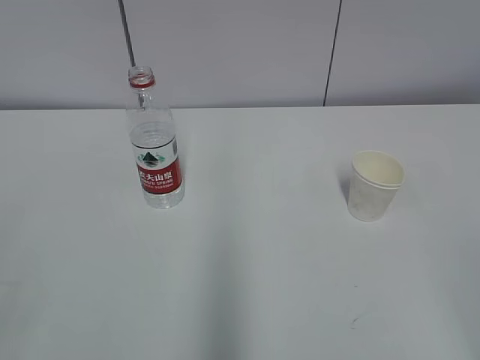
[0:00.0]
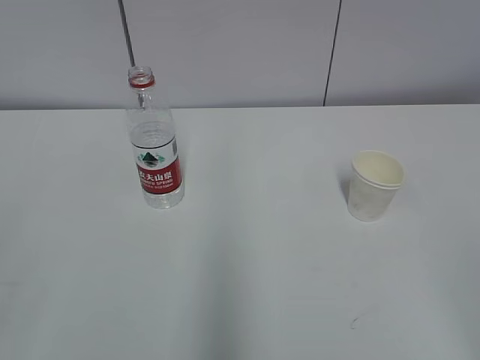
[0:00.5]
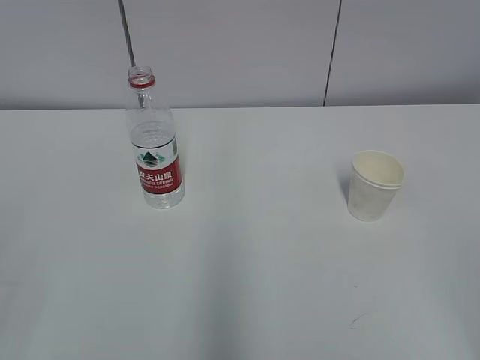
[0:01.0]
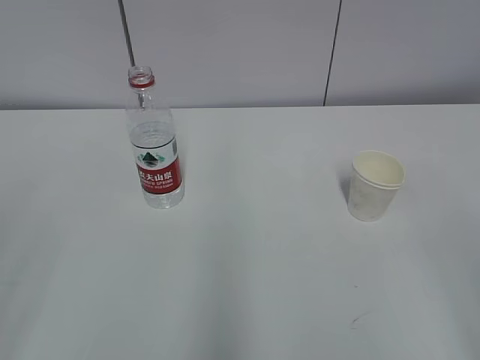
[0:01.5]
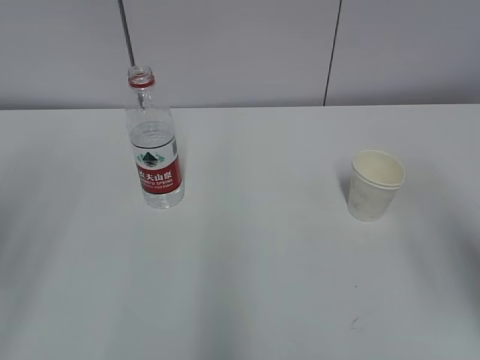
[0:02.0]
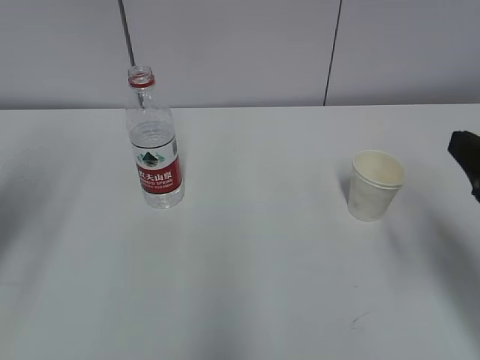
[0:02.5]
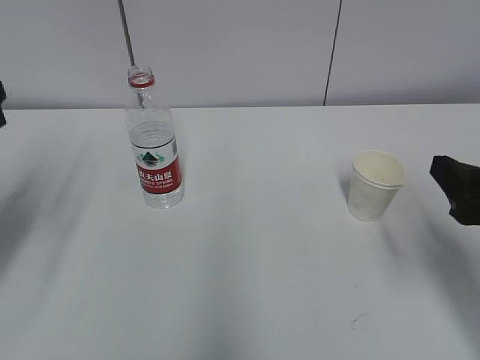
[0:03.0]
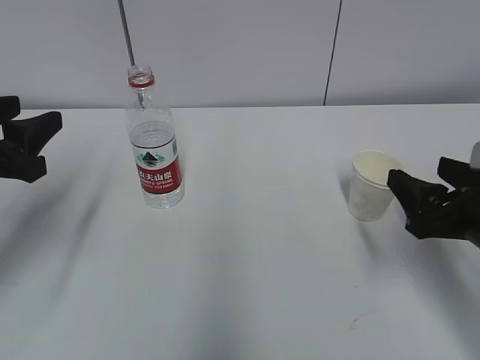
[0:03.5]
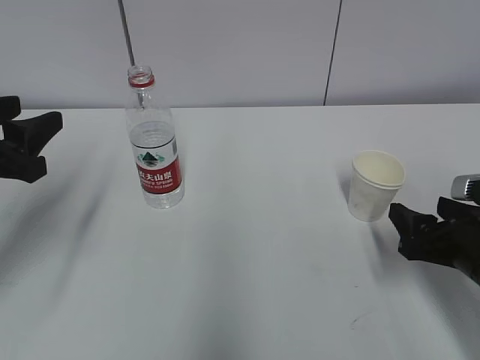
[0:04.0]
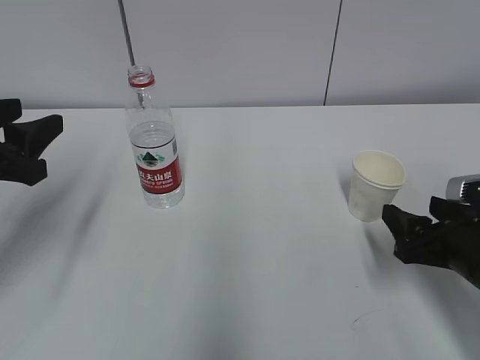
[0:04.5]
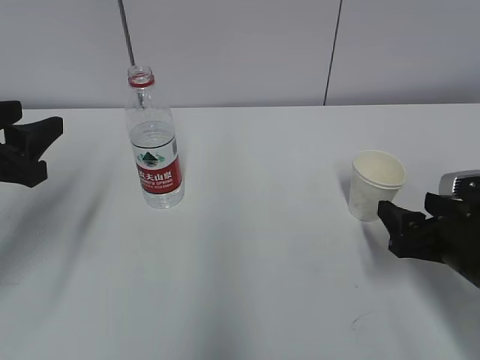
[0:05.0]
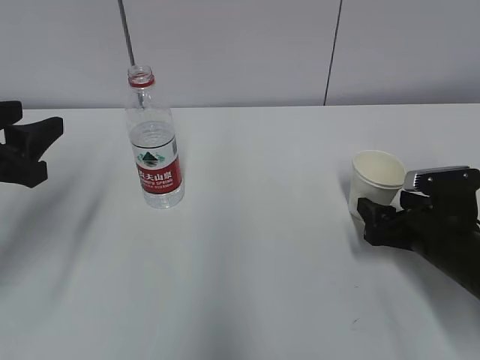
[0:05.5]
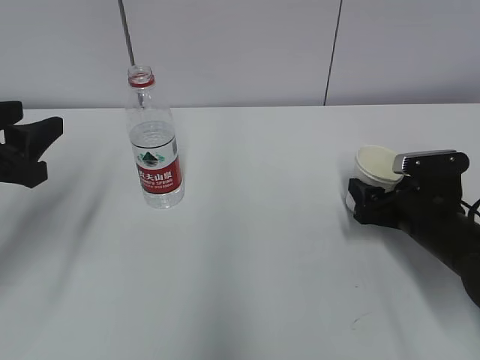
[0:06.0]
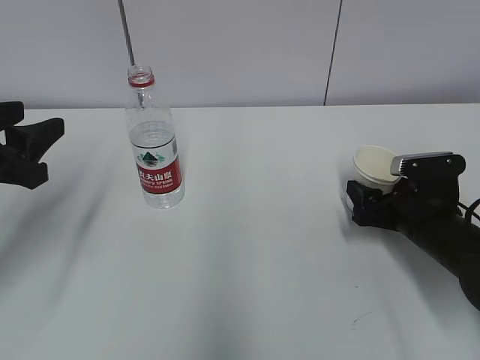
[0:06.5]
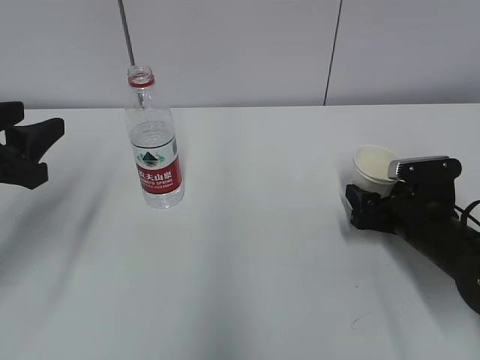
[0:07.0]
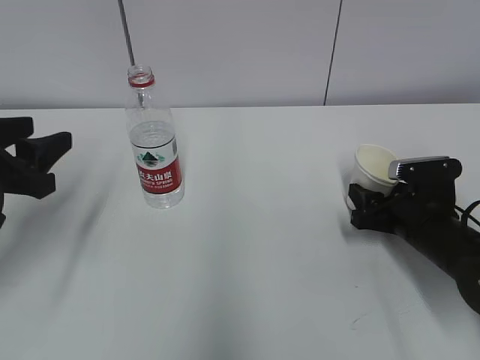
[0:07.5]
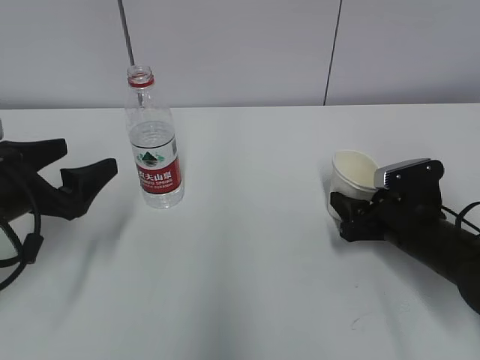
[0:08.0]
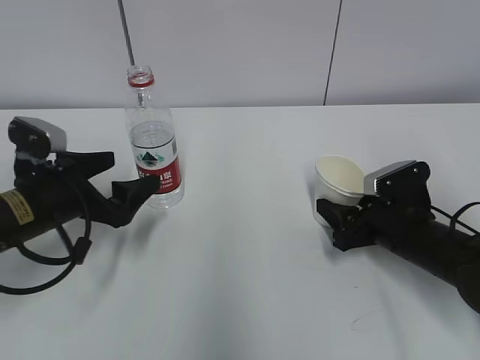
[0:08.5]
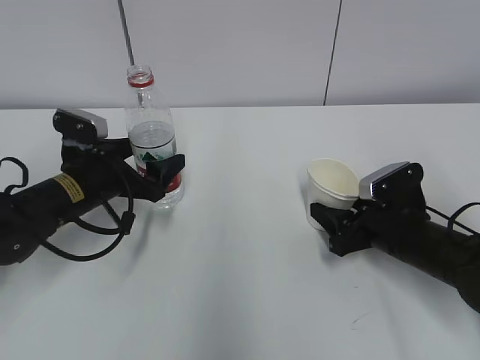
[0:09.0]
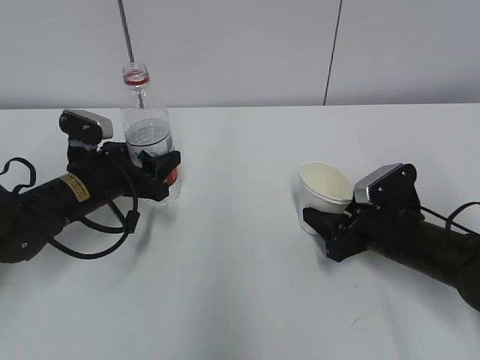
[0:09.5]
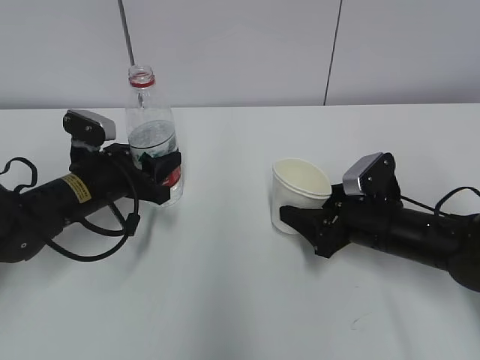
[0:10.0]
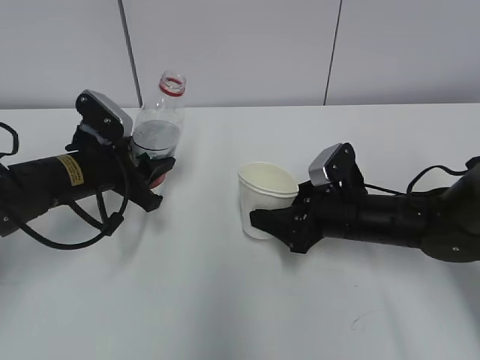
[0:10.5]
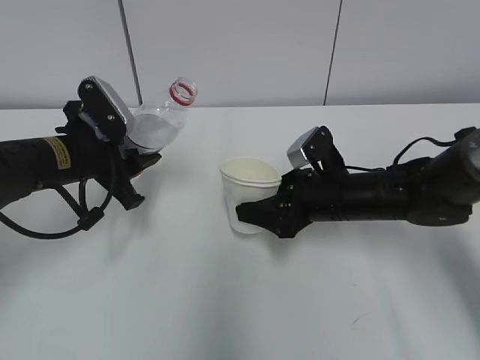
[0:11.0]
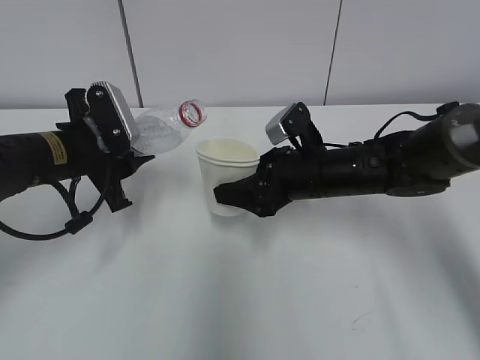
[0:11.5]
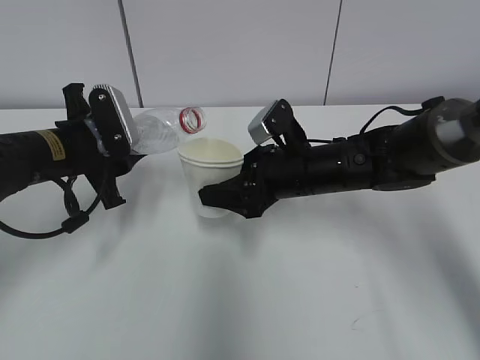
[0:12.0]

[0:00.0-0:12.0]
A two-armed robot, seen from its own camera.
Step, 0:00.0 to 0:07.5: Grab the paper cup with the right hand.
Step, 0:08.5 to 0:12.0: Lift the paper cup with the right hand.
0:02.0 to 0:04.0: The left gripper heads forward and downward, covering some 15 cm. The right gripper travels downward and forward by roughly 25 cm.
0:04.0 to 0:06.0: The right gripper travels forward by about 10 cm.
0:06.0 to 0:08.0: The right gripper closes. Meanwhile the left gripper moves downward, about 5 cm, and opens.
0:08.0 to 0:10.0: The left gripper travels forward, to the right and downward by approximately 15 cm, and closes up.
0:10.0 to 0:12.0: The left gripper heads upward, covering approximately 5 cm. The right gripper heads to the left and upward, covering approximately 10 cm.

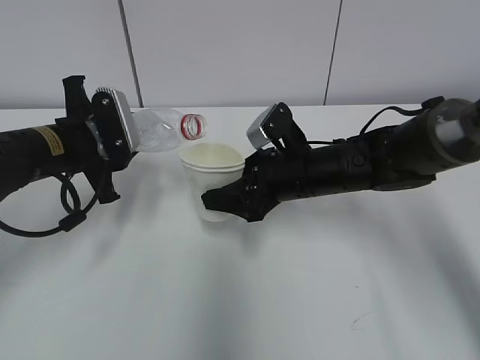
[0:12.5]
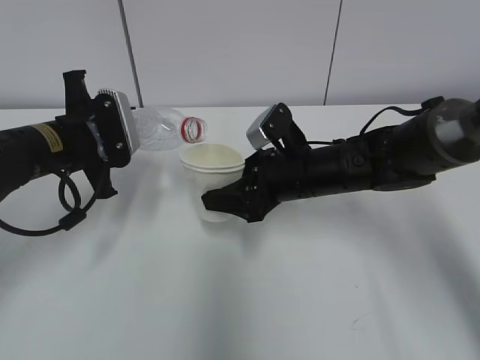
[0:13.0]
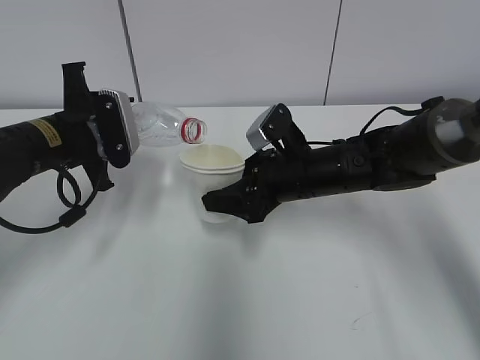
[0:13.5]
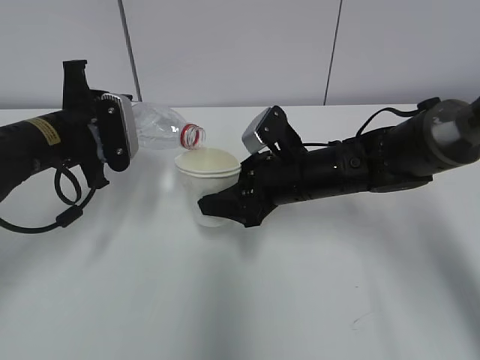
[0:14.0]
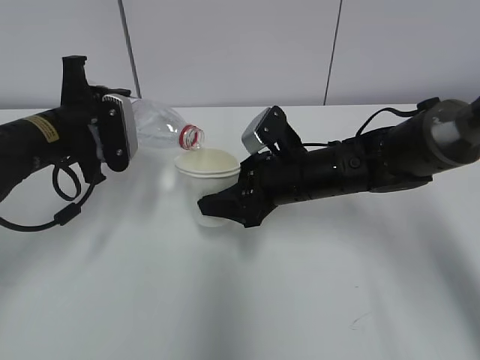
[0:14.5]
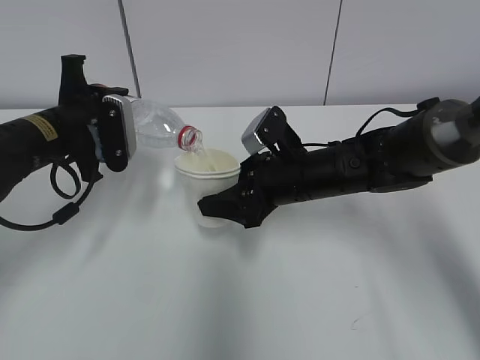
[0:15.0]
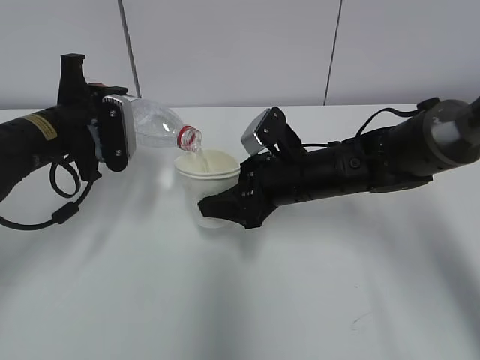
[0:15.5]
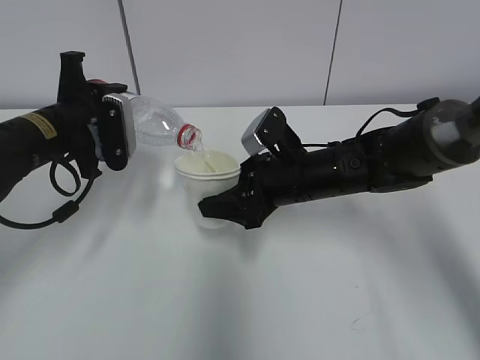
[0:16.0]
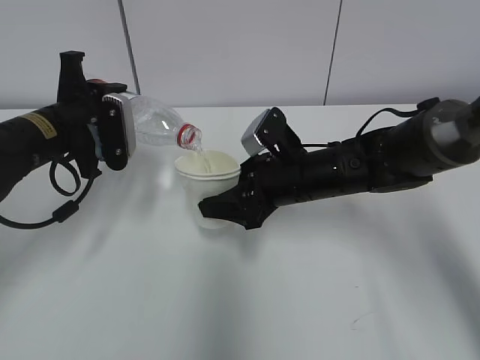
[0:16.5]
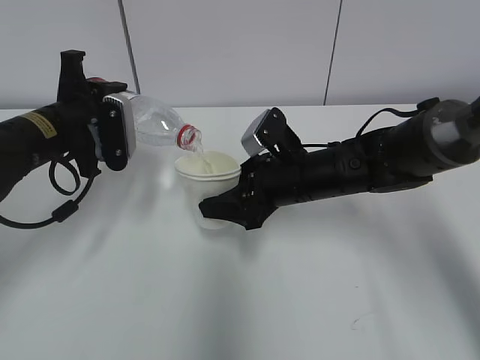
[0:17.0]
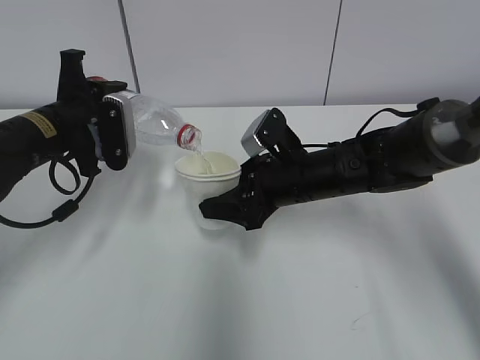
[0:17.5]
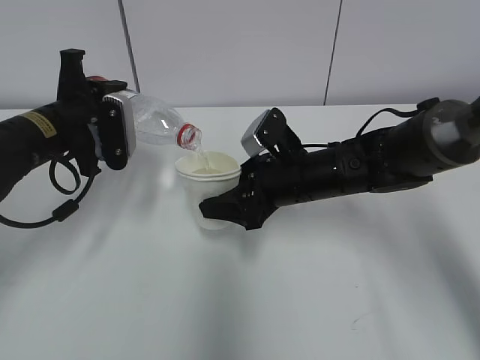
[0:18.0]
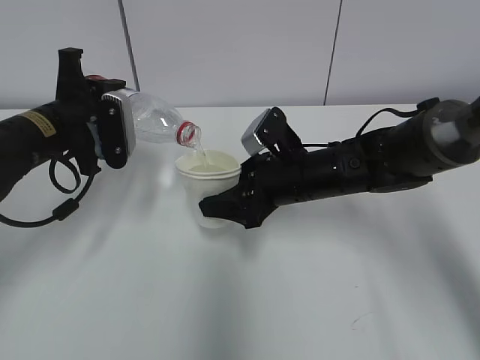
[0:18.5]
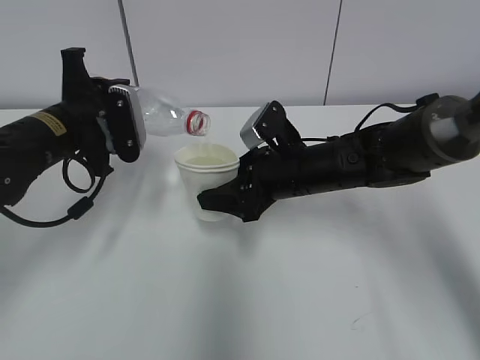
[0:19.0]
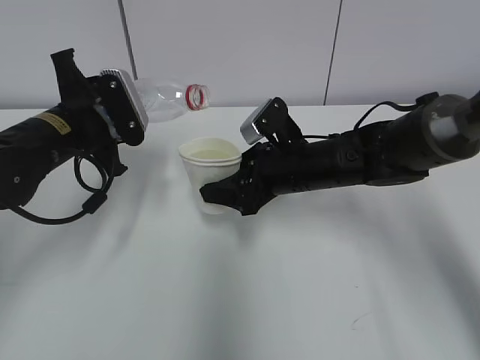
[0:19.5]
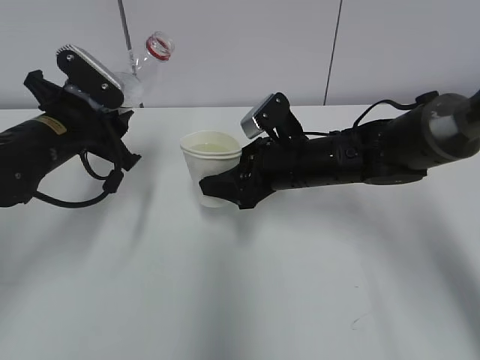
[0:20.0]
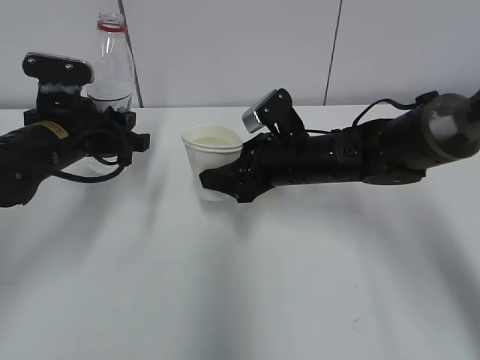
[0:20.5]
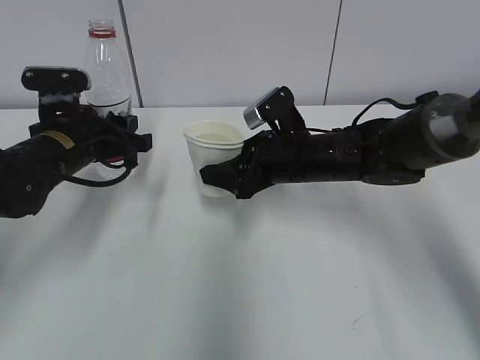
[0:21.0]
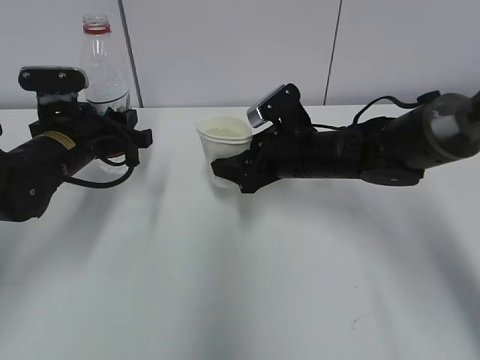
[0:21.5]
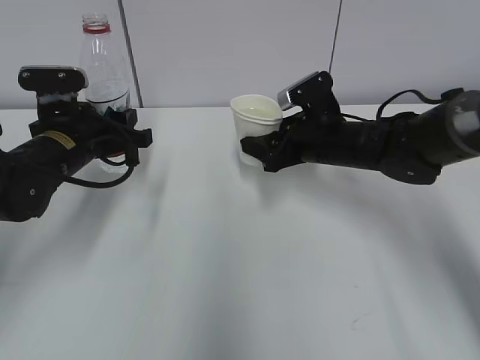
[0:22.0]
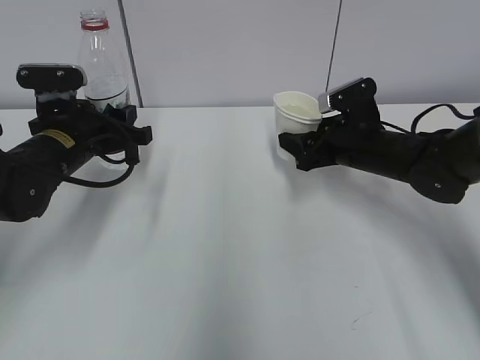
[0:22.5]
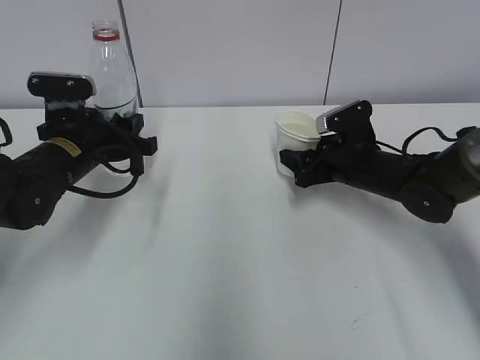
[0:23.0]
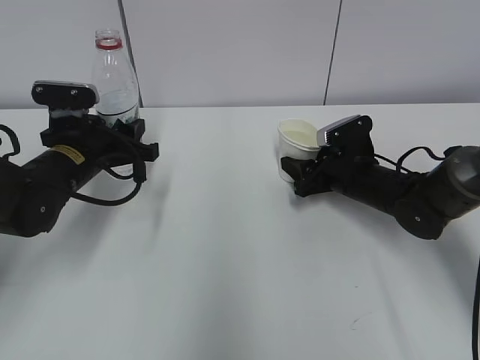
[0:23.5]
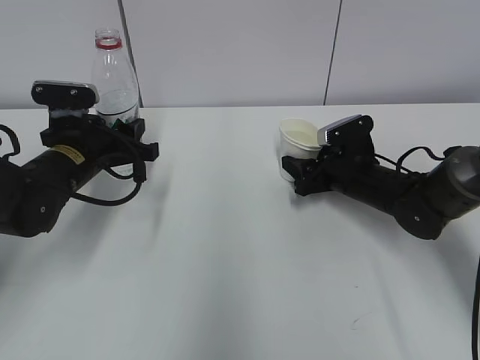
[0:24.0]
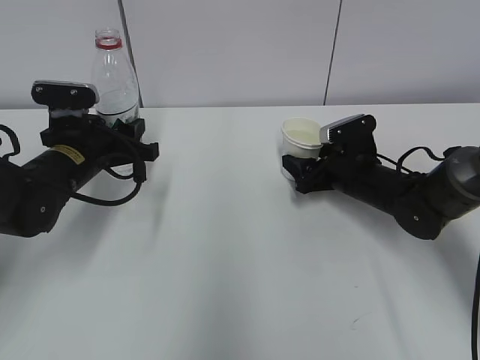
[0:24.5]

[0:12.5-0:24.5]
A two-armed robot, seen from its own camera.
Step, 0:12.5 to 0:15.5: Fill water with the right hand.
Step, 0:12.5 to 0:15.5: Pour water with the left hand.
Step, 0:17.5 to 0:21.0: Place the paper cup with the right hand.
0:14.5 to 0:16.5: Both grippers stay about where they are.
0:16.5 to 0:18.5: Both grippers stay about where they are.
0:20.5 to 0:22.5: The right gripper goes about 10 cm to the right.
0:22.5 to 0:24.5: The right gripper moves downward, roughly 5 cm, and opens up.

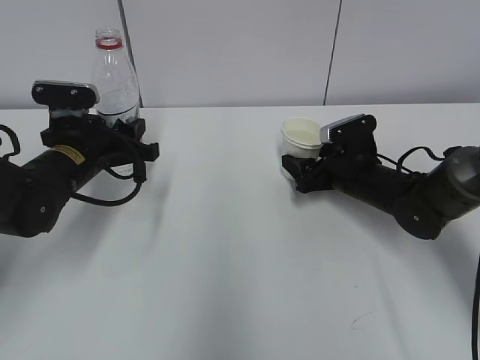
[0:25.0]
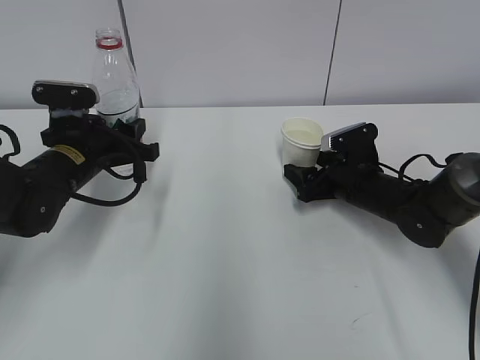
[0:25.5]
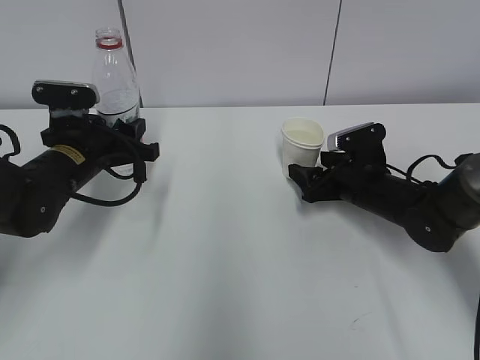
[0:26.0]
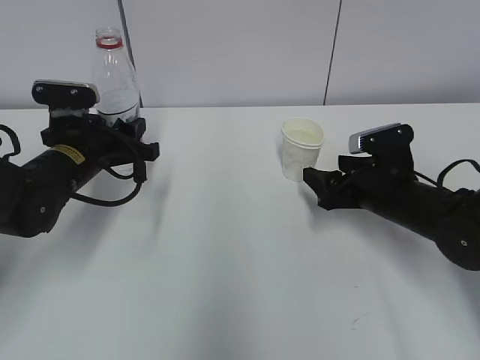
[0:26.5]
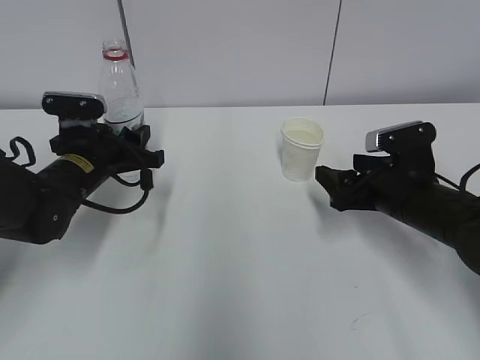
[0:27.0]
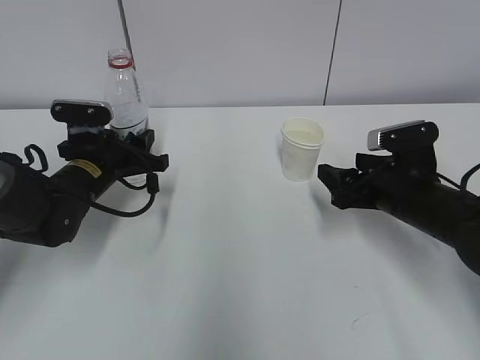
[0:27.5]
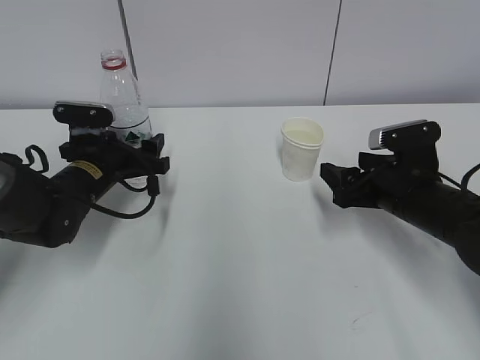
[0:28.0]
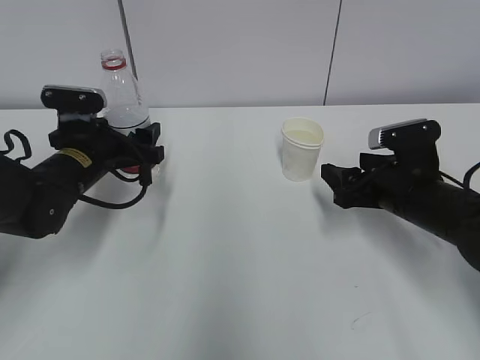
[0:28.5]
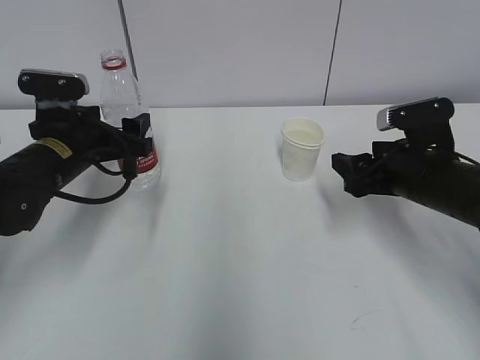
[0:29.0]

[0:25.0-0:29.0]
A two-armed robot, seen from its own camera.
0:25.0 to 0:27.0: The right gripper moves backward, roughly 10 cm.
0:27.0 to 0:29.0: The left gripper opens up.
